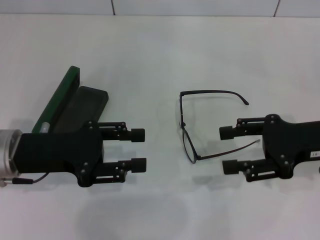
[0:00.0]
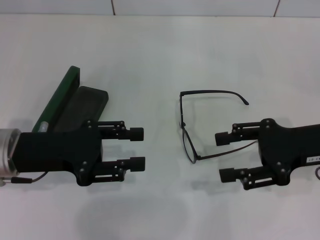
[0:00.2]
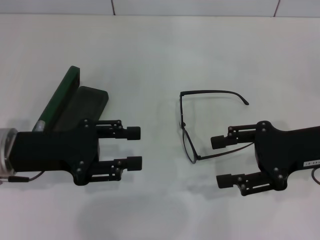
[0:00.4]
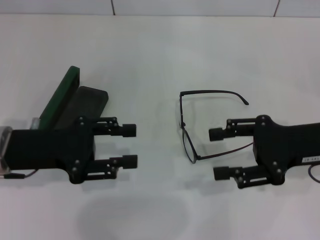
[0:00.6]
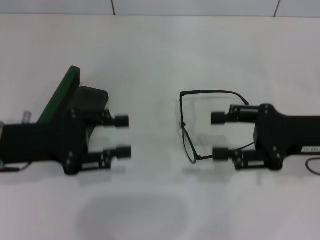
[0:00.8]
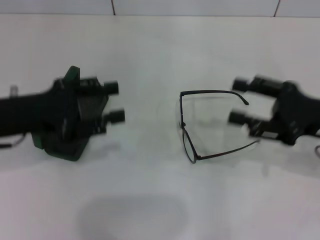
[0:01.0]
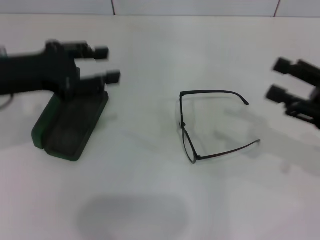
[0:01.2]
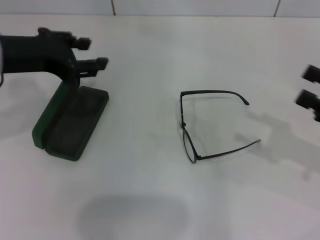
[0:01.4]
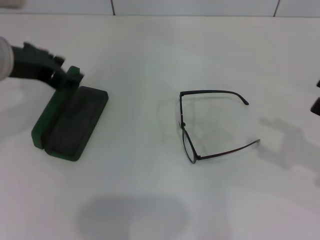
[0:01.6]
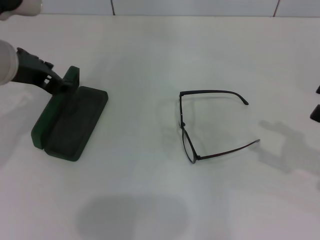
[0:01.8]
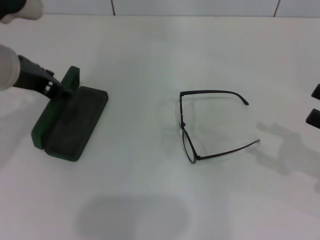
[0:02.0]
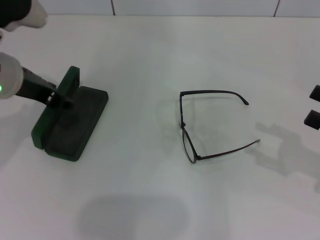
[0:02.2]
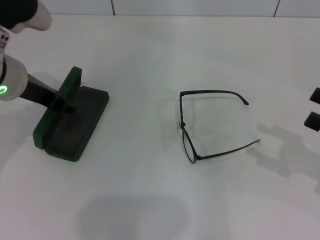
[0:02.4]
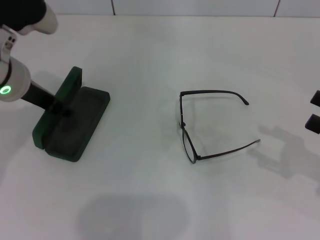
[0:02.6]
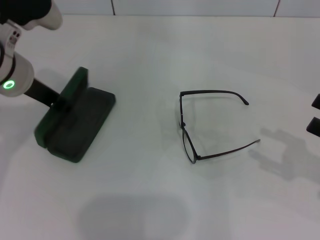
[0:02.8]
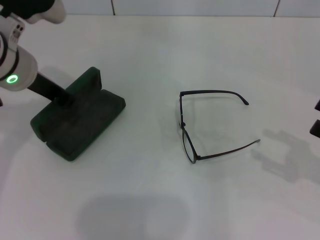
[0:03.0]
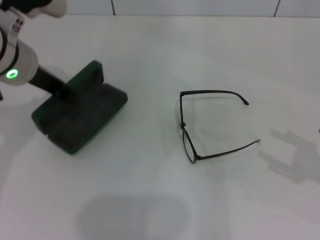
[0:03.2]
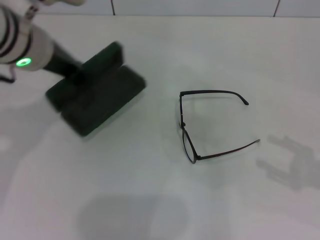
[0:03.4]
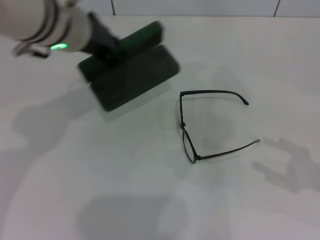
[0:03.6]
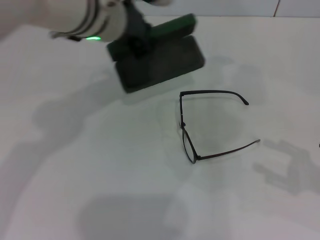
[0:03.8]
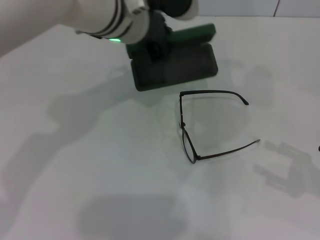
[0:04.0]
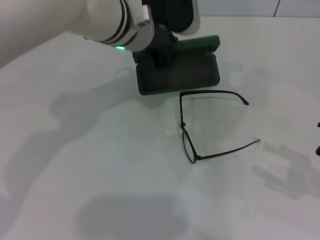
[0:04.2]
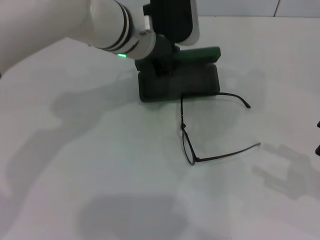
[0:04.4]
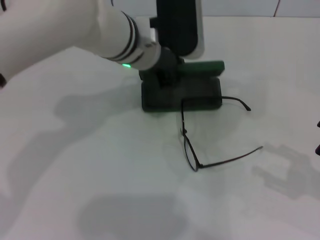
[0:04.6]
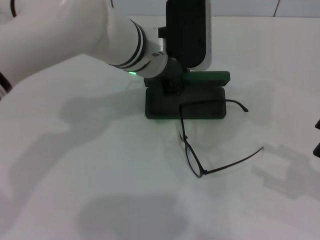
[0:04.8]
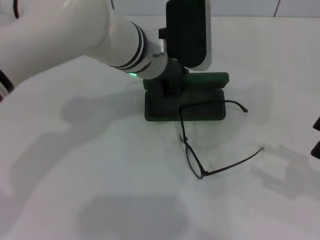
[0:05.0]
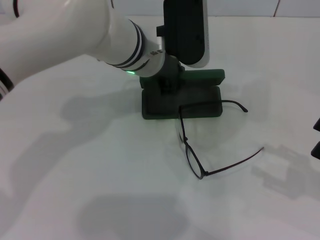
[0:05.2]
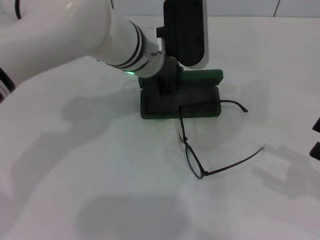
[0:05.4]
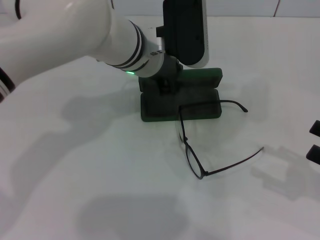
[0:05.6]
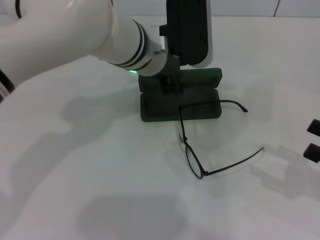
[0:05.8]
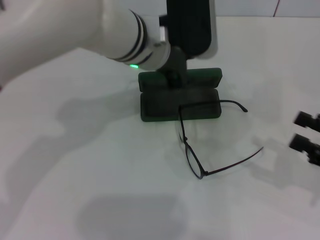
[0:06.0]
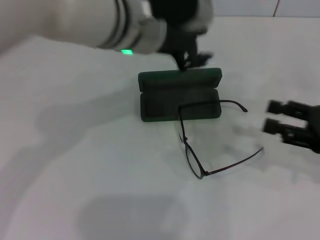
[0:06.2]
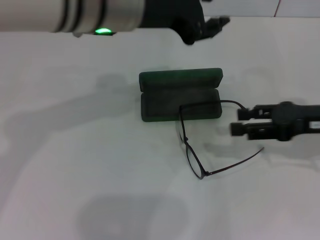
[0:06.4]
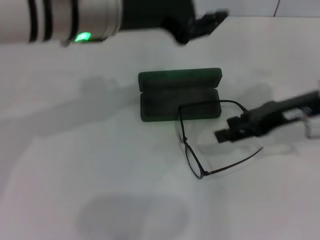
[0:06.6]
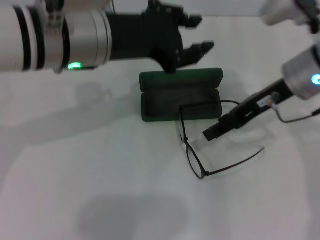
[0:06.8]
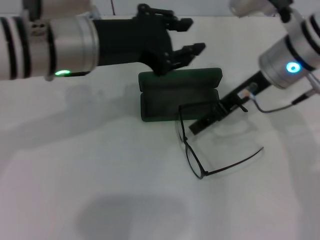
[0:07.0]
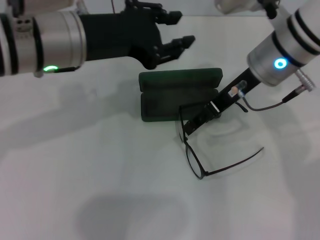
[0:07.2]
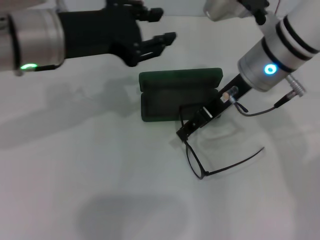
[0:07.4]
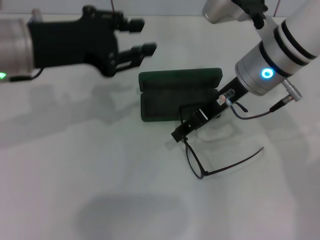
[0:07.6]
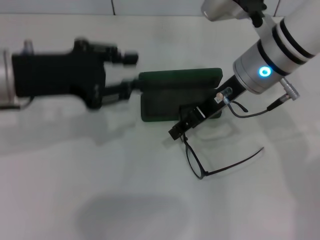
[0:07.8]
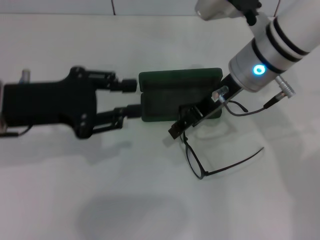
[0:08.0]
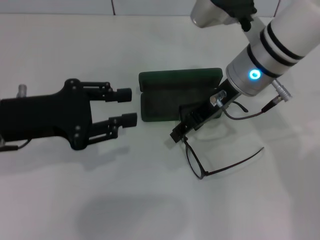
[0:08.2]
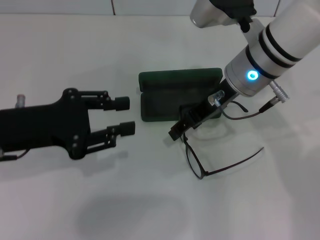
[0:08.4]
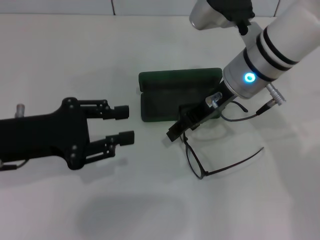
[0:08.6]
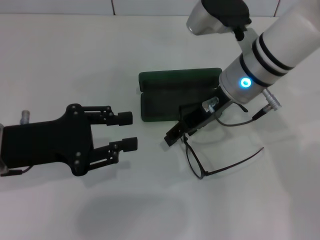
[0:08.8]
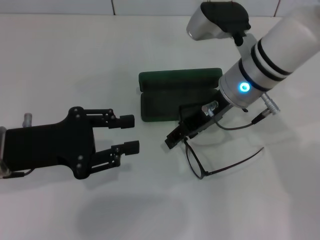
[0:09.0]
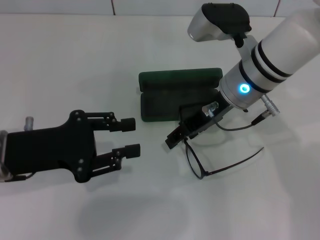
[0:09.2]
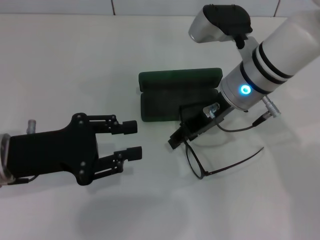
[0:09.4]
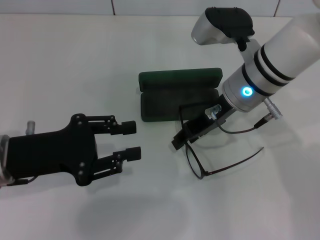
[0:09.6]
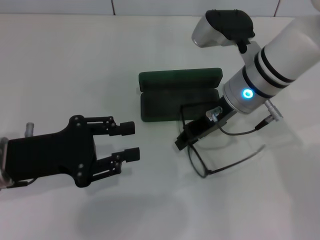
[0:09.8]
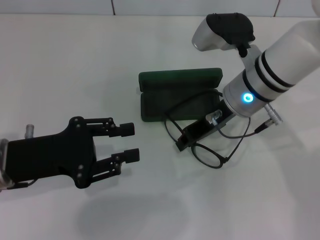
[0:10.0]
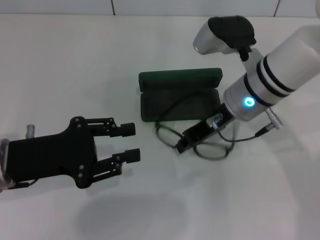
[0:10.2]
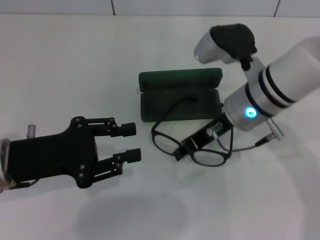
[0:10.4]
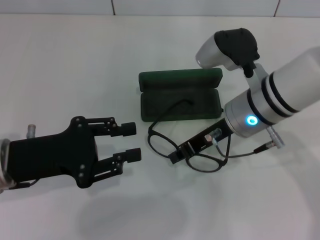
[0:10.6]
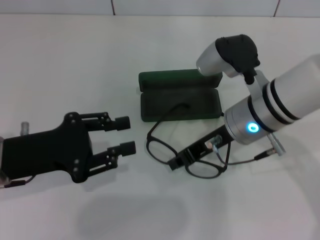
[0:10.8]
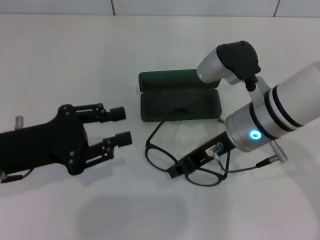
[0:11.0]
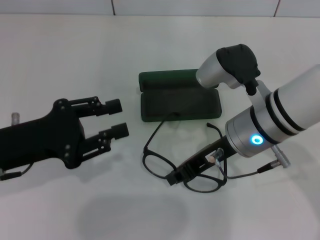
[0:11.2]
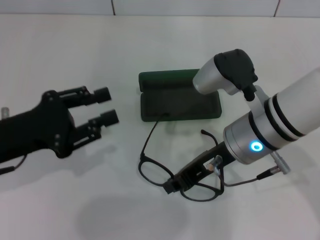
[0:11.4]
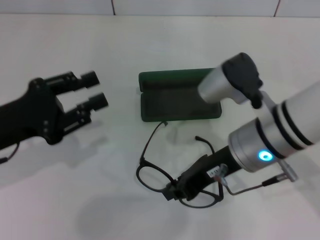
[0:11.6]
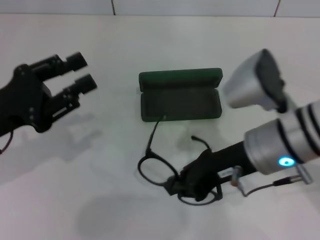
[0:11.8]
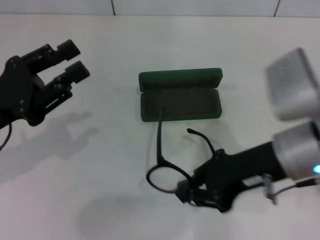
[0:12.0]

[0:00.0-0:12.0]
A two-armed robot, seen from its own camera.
Step, 0:00.0 to 0:02.8: Grab the glasses case with your left hand.
Step, 0:03.0 to 0:05.8: Place the glasses case in the center of the table with your left hand.
Step, 0:06.0 to 0:10.2: Grab the eyeglass frame with your right hand.
0:00.0 to 0:01.6: The right gripper heads to the right, covering about 10 cm. Meanwhile the left gripper shifts some 10 cm upward and forward.
0:01.6 to 0:03.0: The left gripper closes up.
0:03.0 to 0:04.4: The left gripper travels to the right by some 15 cm.
0:04.4 to 0:06.0: The left gripper opens its fingers.
0:06.0 to 0:07.6: The left gripper is displaced to the left and backward by about 15 cm. The right gripper travels to the left, forward and upward by roughly 30 cm.
0:07.6 to 0:09.0: The left gripper is displaced downward and backward by about 10 cm.
0:09.0 to 0:10.4: The right gripper closes its fingers.
0:10.4 to 0:12.0: The right gripper shifts some 10 cm backward and to the right.
